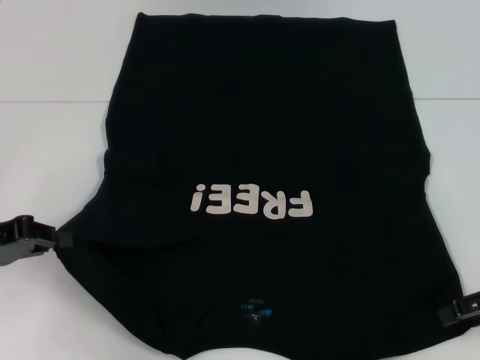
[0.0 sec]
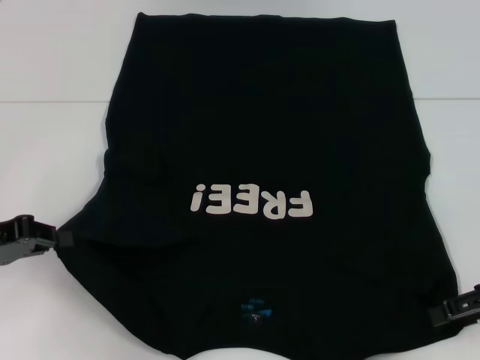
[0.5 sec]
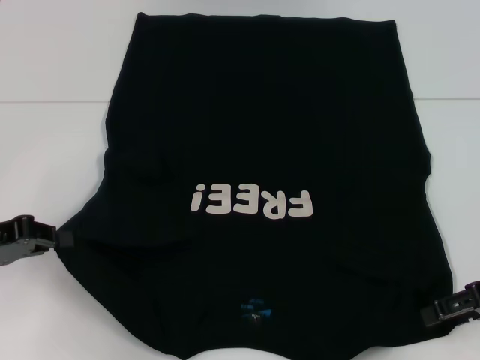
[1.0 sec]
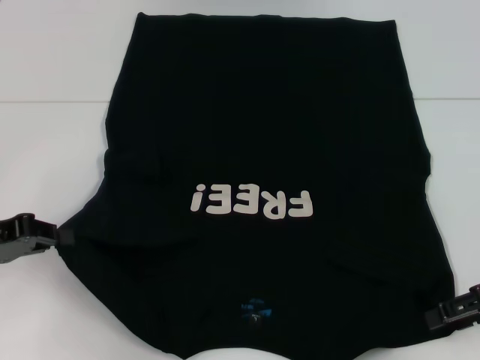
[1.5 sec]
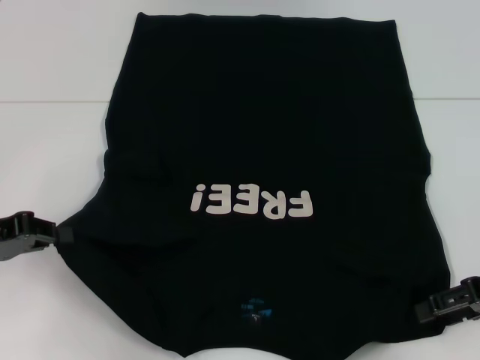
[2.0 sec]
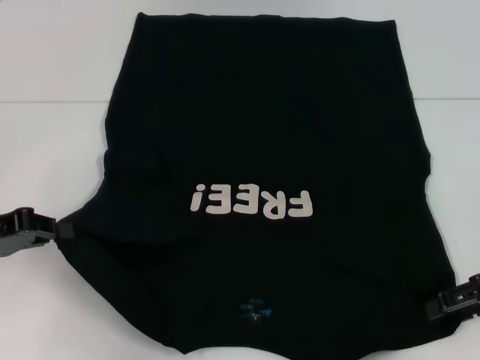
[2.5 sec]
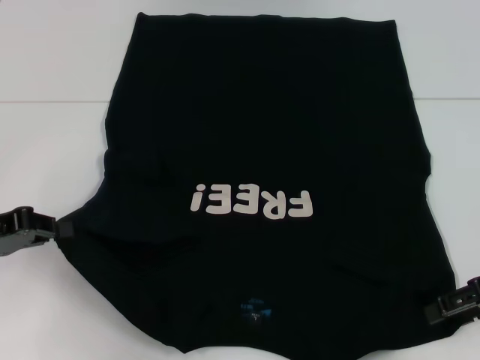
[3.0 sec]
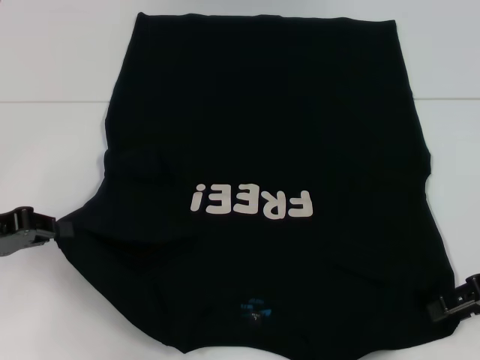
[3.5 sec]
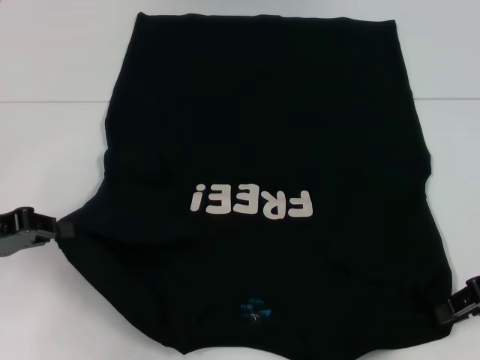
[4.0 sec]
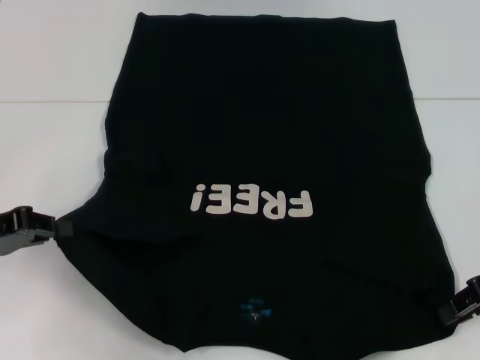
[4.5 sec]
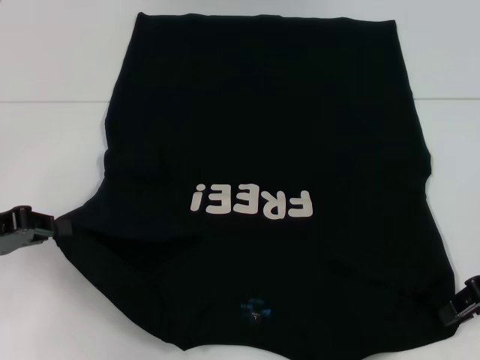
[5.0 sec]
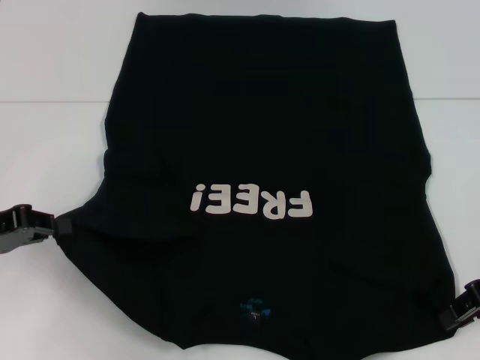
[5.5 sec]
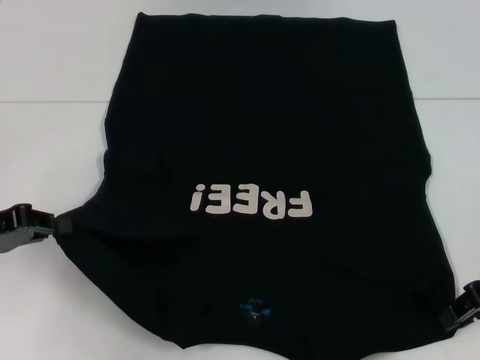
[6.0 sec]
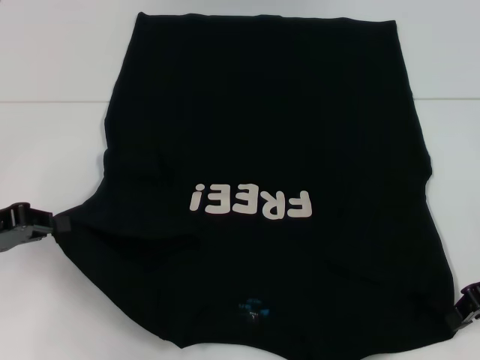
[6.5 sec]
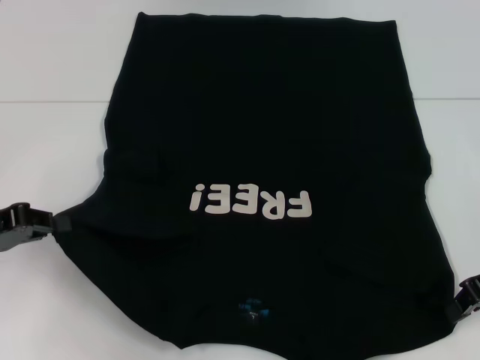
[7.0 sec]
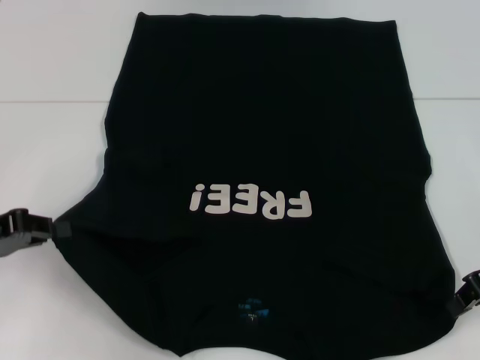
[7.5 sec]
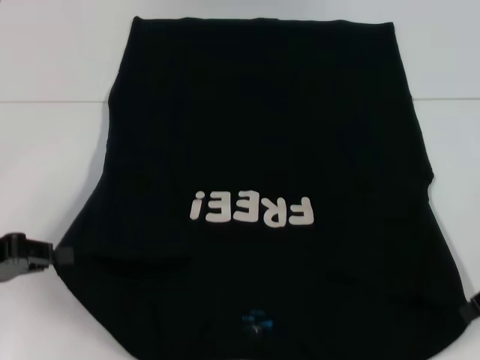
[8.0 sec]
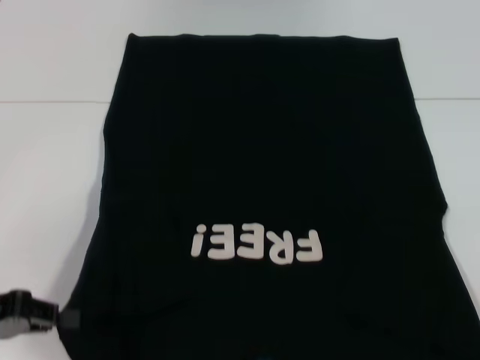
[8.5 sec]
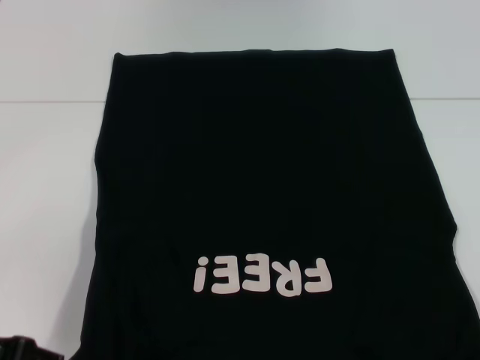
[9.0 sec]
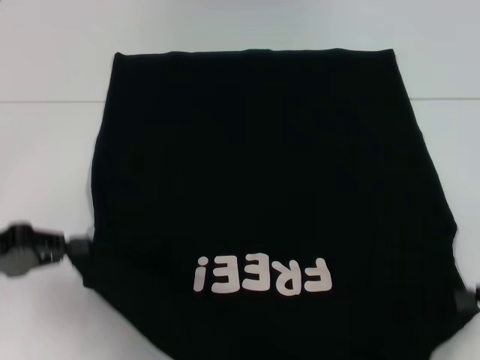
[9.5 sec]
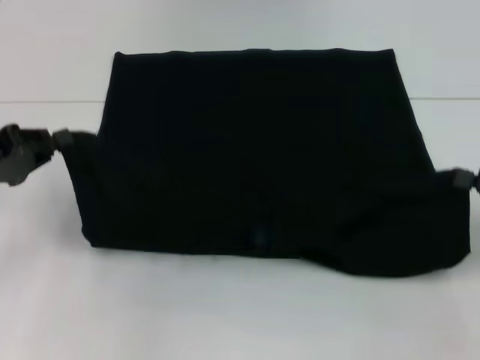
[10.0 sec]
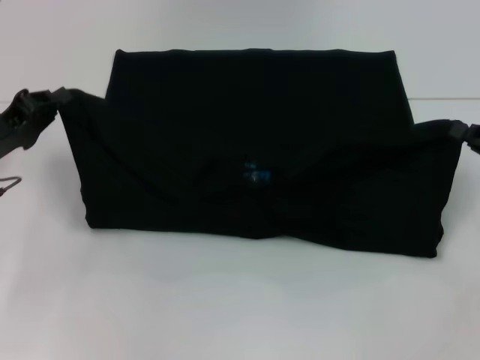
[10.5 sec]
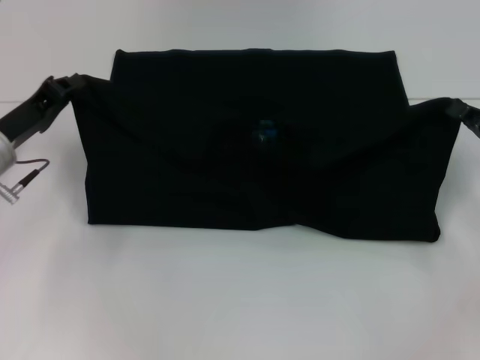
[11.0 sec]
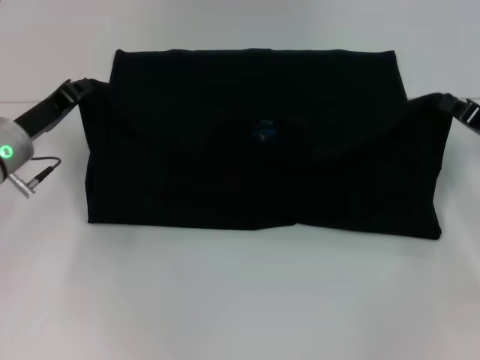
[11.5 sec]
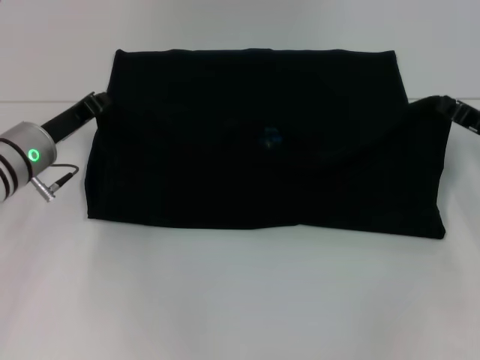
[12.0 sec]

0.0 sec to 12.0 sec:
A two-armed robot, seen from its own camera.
Step, 0.0 sec to 2.0 sec: Grab the bottom right corner with your right hand.
0.0 sec to 2.0 sec: The grippers make only small movements.
2.0 sec to 4.0 sec: The right gripper closes.
4.0 sec to 8.0 sec: The grippers make only small movements.
8.0 sec to 10.0 sec: The right gripper travels to the right by roughly 5 cm.
10.0 sec to 12.0 sec: The right gripper is displaced forward and to the left by about 10 cm, while the left gripper shifts some 10 cm to the right and forward.

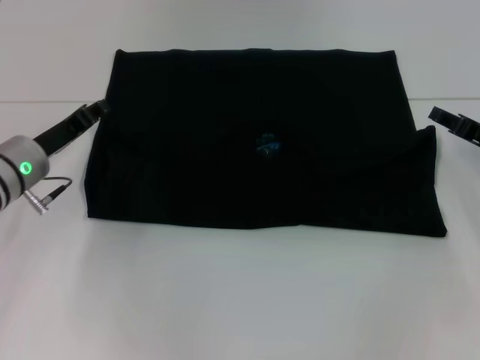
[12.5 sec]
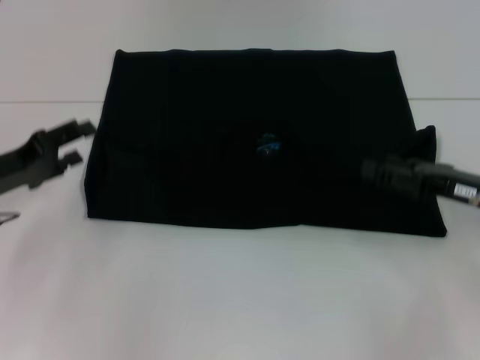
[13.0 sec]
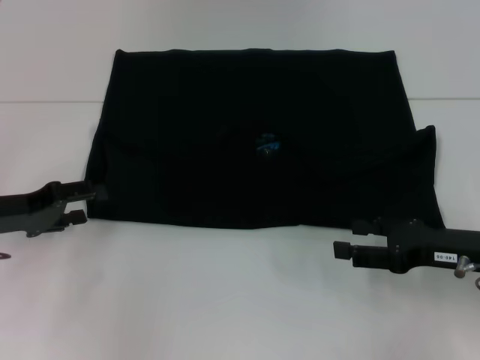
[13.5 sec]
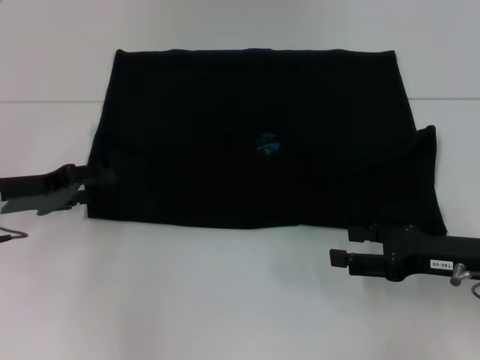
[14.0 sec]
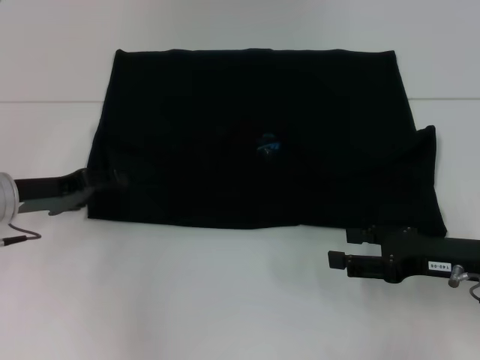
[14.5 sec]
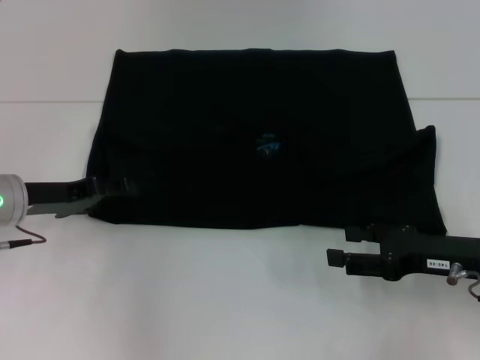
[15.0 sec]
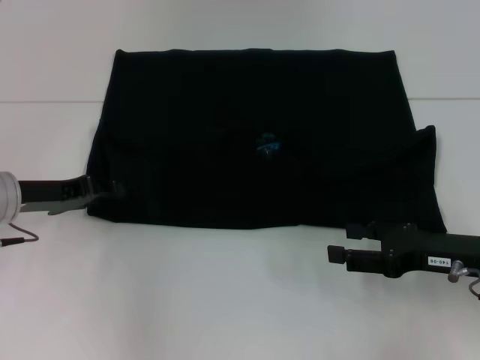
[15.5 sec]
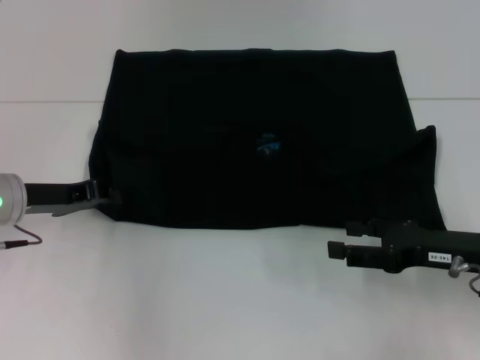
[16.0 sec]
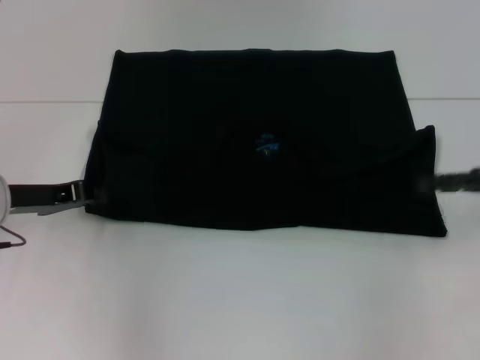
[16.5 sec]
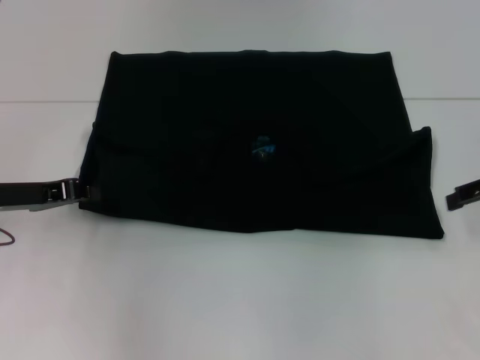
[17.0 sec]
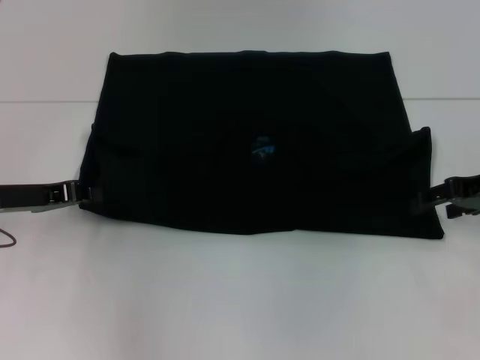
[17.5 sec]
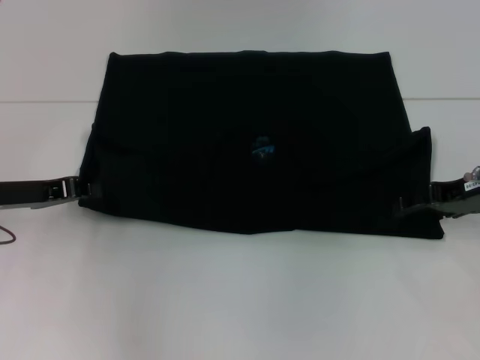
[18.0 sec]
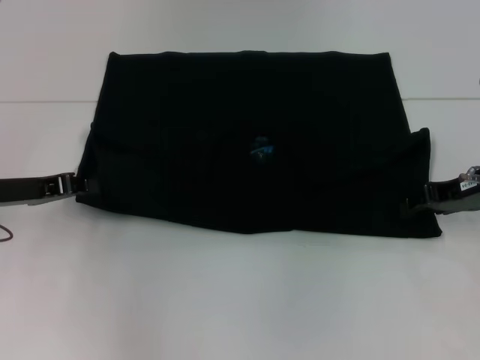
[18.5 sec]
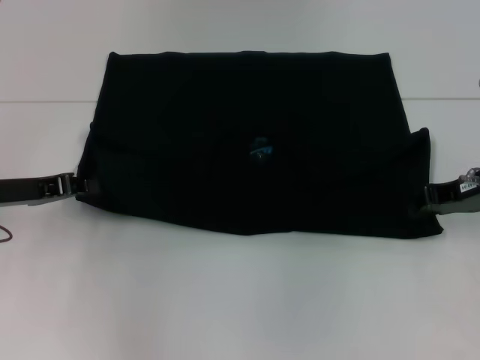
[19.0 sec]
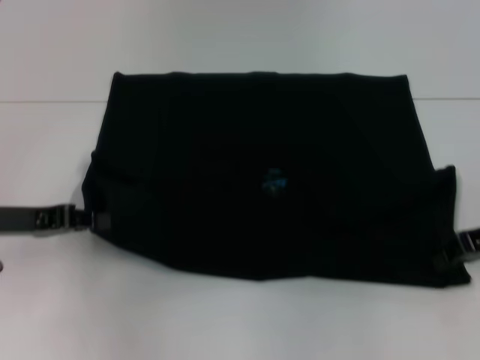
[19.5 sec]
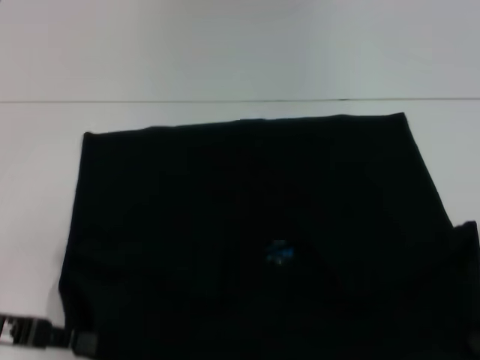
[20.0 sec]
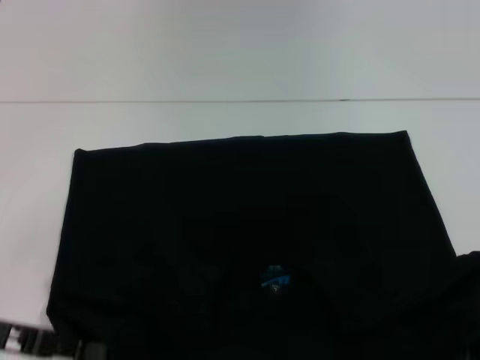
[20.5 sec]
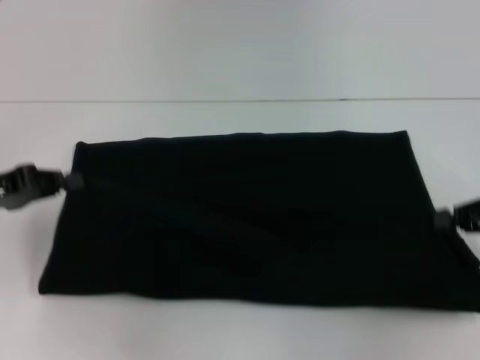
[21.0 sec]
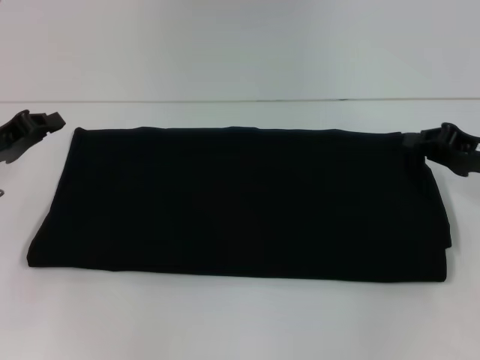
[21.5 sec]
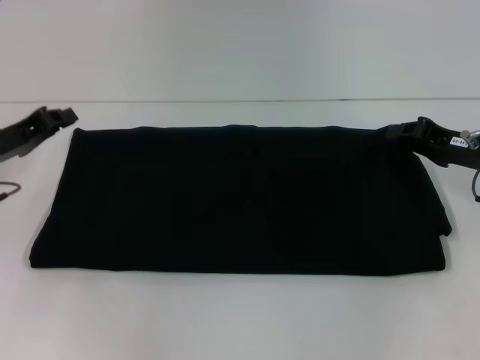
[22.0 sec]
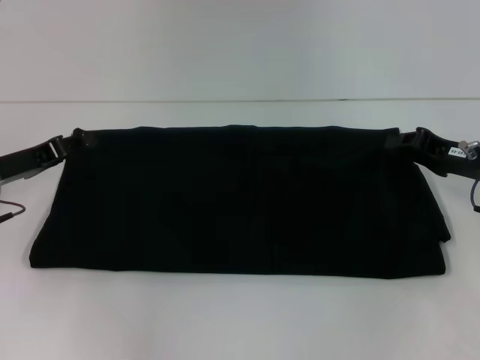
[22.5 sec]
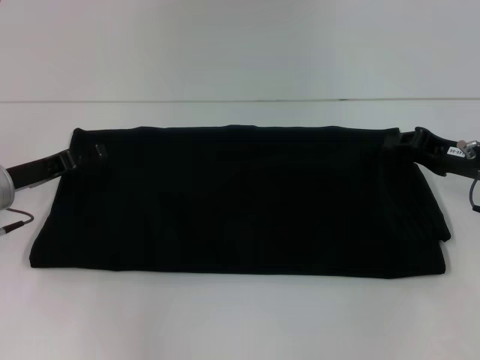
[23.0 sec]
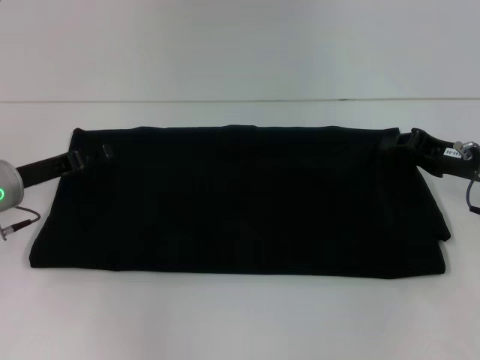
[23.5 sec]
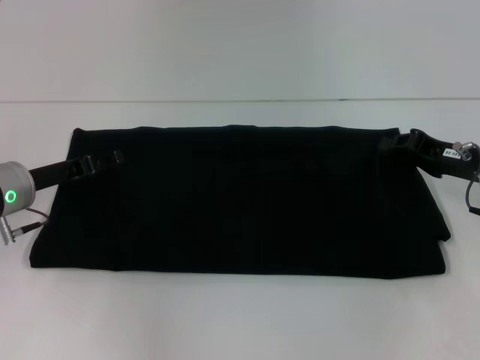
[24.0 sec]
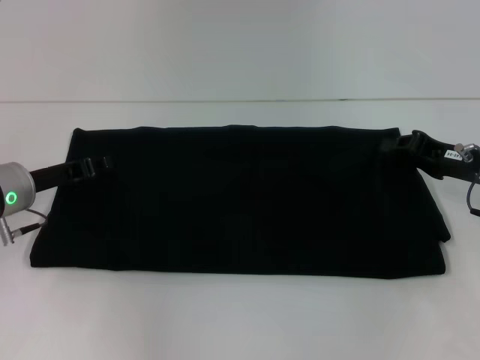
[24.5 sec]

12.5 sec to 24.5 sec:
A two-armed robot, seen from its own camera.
Step, 12.5 sec to 19.5 sec: Pull the clothes with your left hand.
Step, 12.5 sec to 19.5 sec: Pull the clothes with your right hand.
12.5 sec to 14.5 sec: The right gripper travels backward by about 10 cm, and opens up. The left gripper opens.
14.5 sec to 16.5 sec: The right gripper travels upward and to the right by some 10 cm; the left gripper closes up.
16.5 sec to 18.5 sec: The right gripper moves to the left, approximately 5 cm.
18.5 sec to 20.5 sec: The grippers both shift backward by some 10 cm. The right gripper closes its fingers.
20.5 sec to 22.5 sec: The grippers both shift forward by approximately 10 cm.
22.5 sec to 24.5 sec: The left gripper opens and closes again.

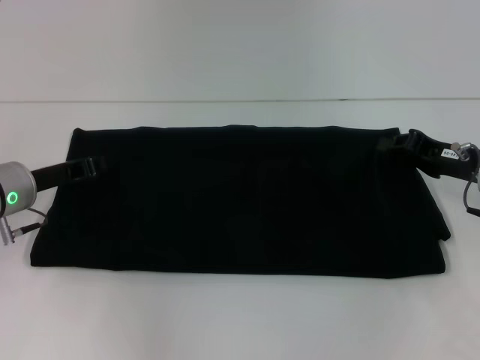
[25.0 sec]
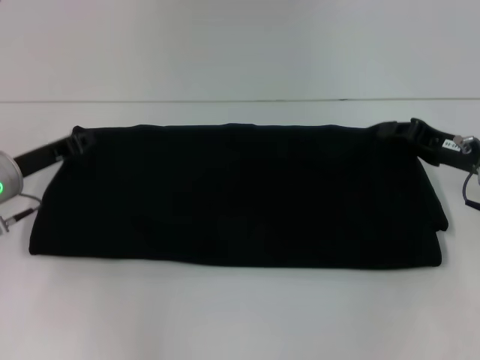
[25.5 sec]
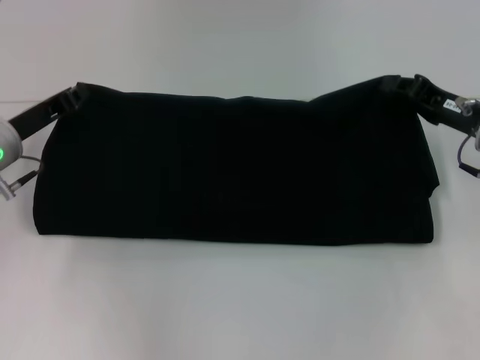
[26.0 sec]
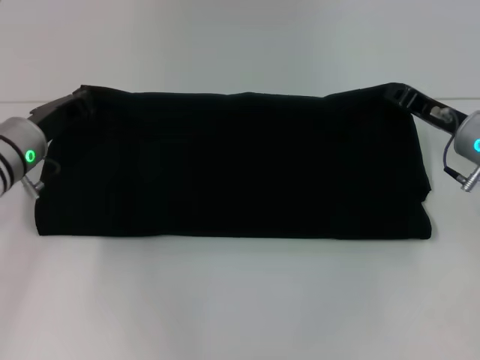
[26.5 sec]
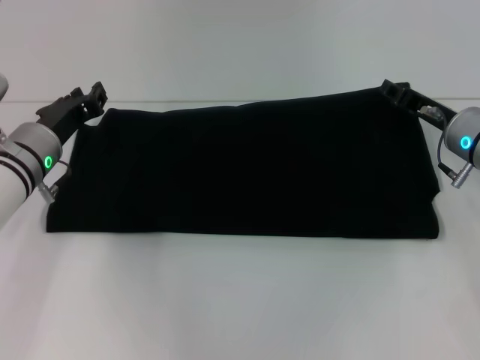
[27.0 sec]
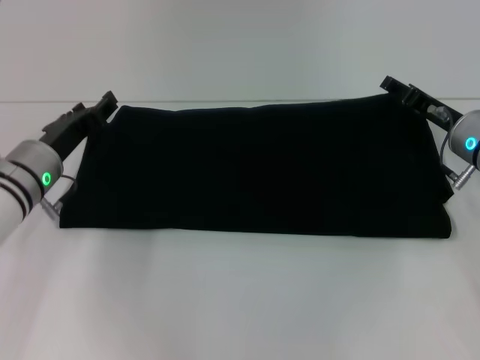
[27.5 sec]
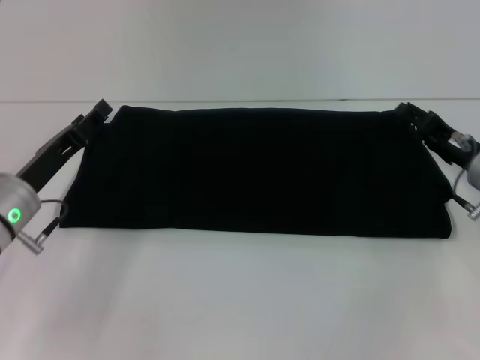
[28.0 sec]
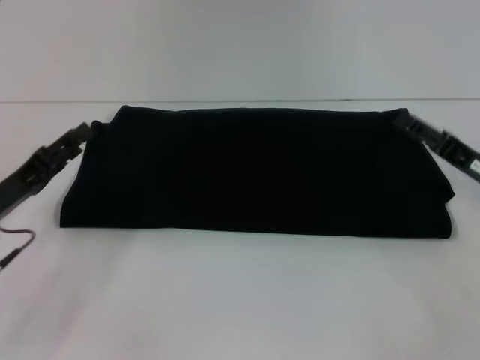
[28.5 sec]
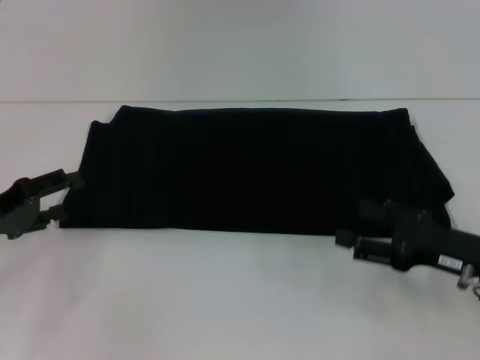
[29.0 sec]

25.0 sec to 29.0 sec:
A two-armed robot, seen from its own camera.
Step, 25.0 sec to 28.0 sec: Fold the clothes with your right hand.
25.0 sec to 27.0 sec: The right gripper ends up approximately 5 cm from where it was.
27.0 sec to 29.0 sec: The right gripper travels backward by about 15 cm, and opens its fingers. The left gripper heads to the left and backward, covering some 15 cm, and opens its fingers.
